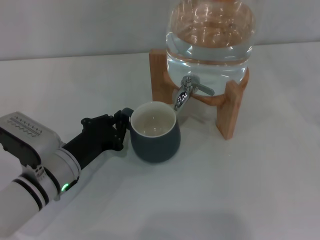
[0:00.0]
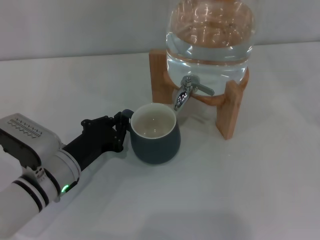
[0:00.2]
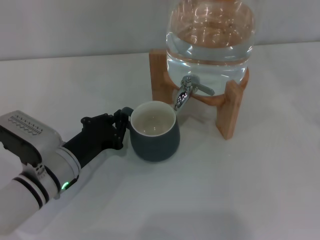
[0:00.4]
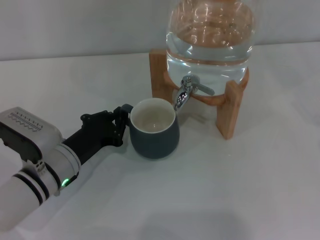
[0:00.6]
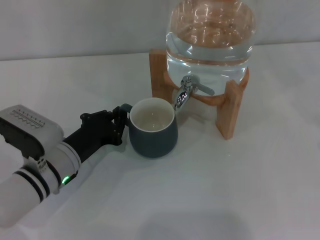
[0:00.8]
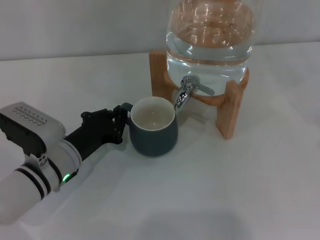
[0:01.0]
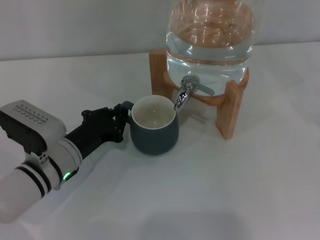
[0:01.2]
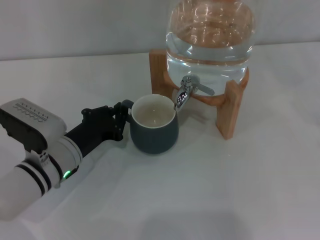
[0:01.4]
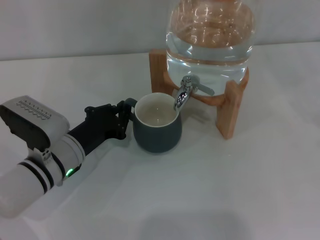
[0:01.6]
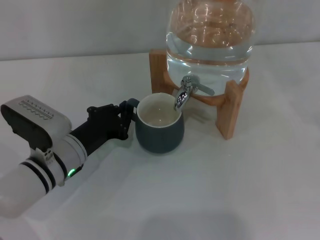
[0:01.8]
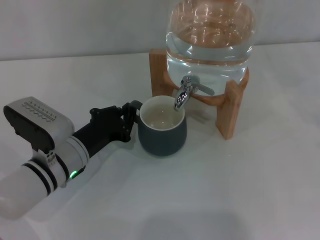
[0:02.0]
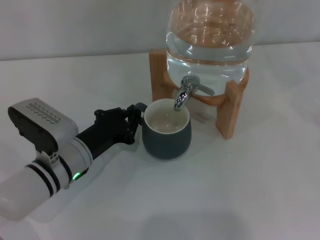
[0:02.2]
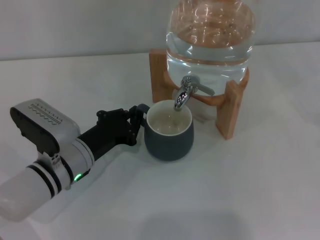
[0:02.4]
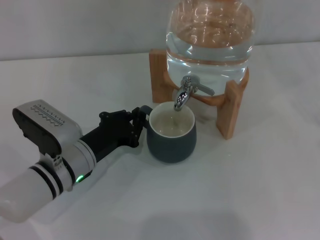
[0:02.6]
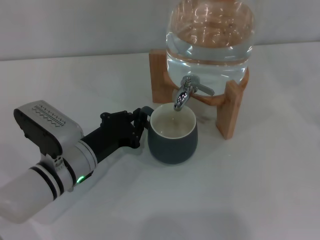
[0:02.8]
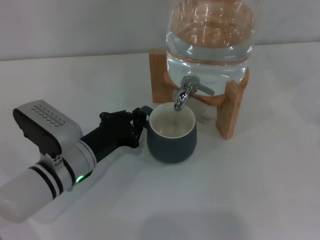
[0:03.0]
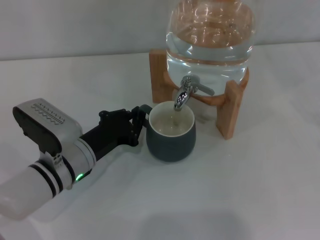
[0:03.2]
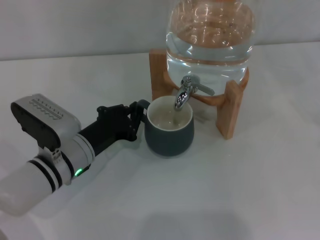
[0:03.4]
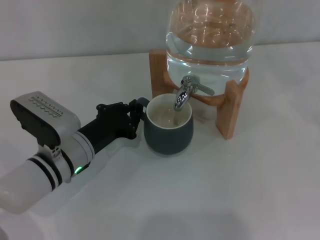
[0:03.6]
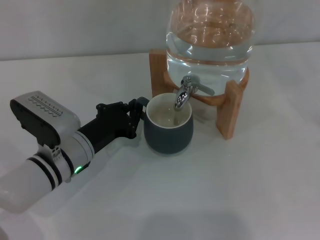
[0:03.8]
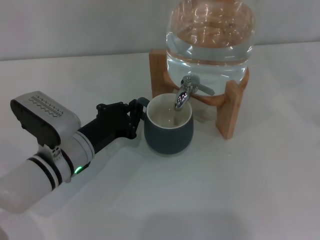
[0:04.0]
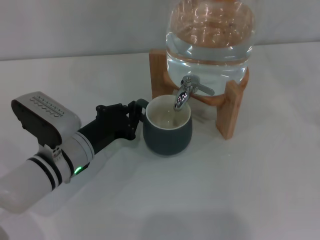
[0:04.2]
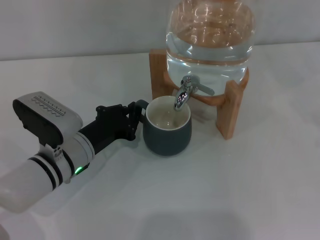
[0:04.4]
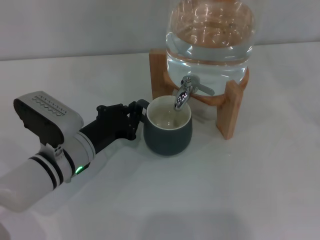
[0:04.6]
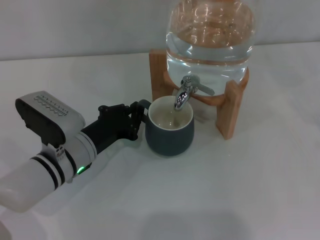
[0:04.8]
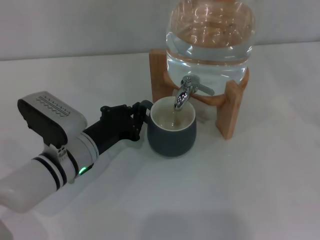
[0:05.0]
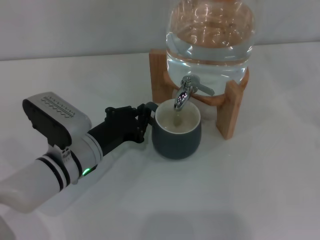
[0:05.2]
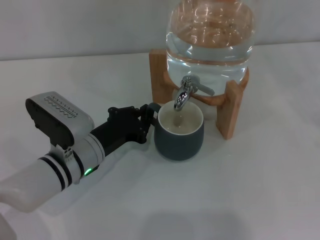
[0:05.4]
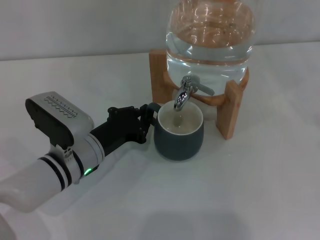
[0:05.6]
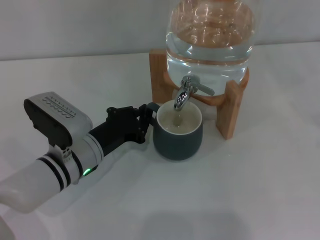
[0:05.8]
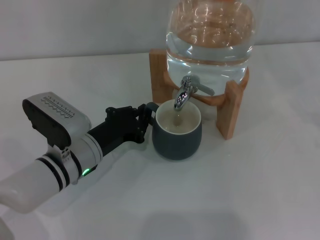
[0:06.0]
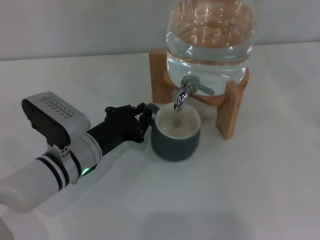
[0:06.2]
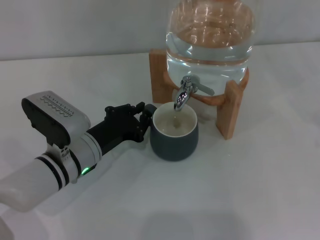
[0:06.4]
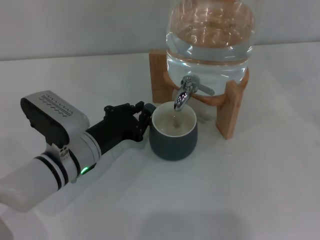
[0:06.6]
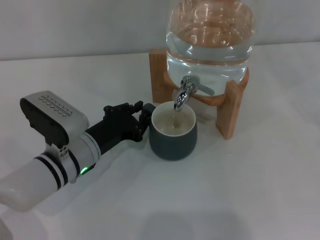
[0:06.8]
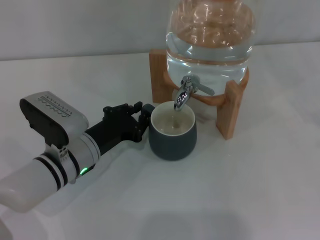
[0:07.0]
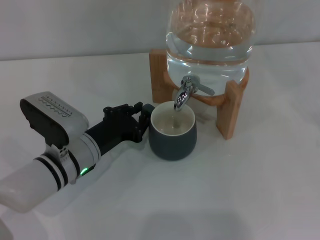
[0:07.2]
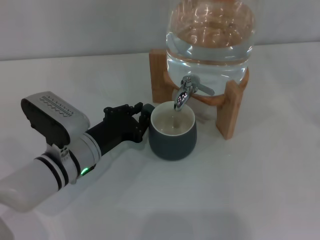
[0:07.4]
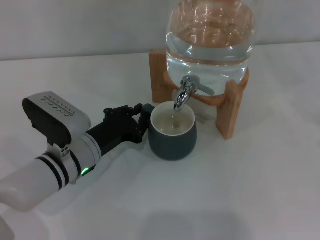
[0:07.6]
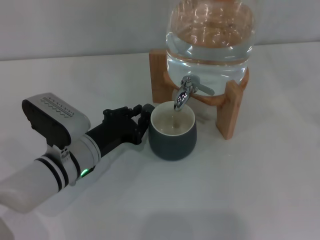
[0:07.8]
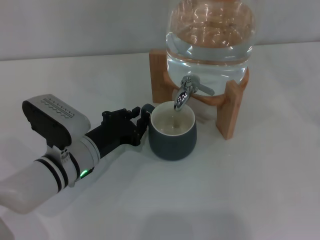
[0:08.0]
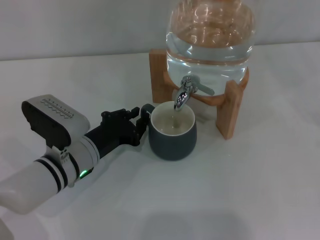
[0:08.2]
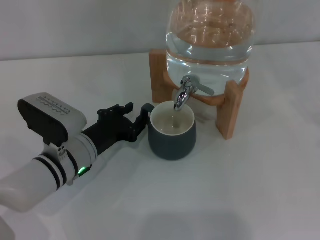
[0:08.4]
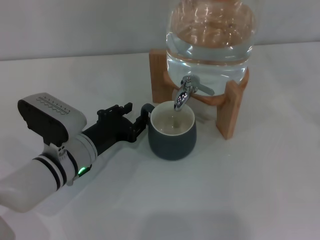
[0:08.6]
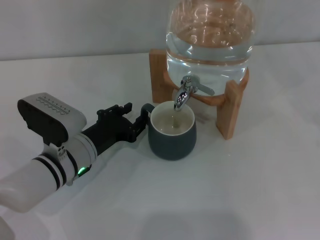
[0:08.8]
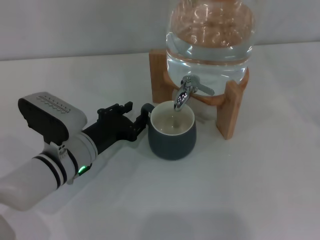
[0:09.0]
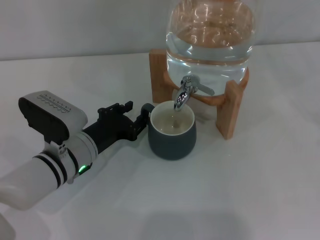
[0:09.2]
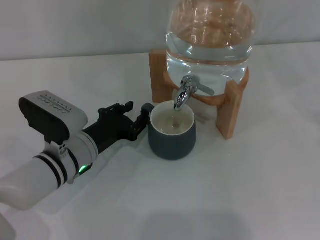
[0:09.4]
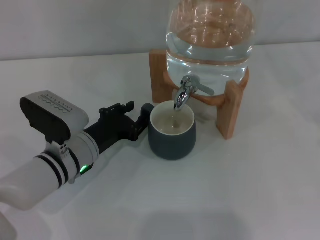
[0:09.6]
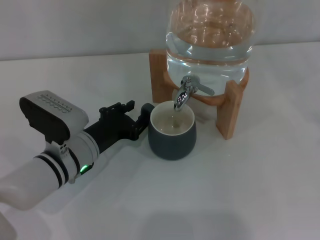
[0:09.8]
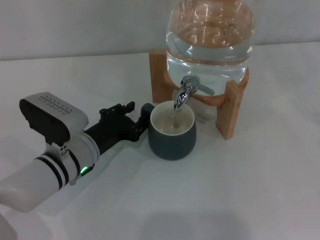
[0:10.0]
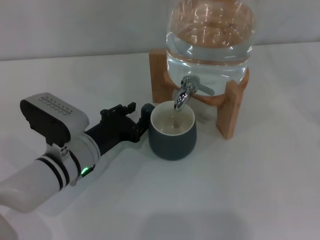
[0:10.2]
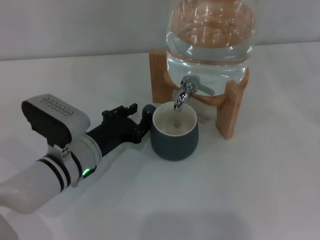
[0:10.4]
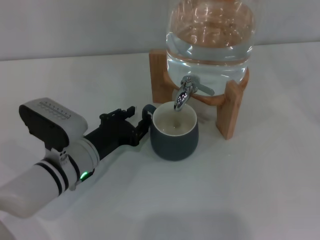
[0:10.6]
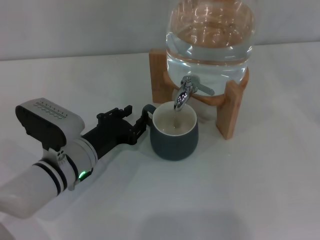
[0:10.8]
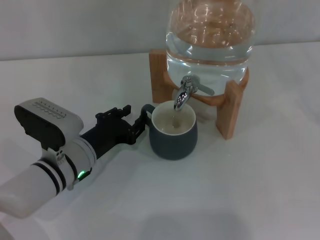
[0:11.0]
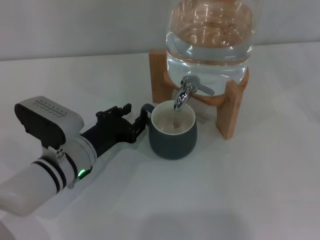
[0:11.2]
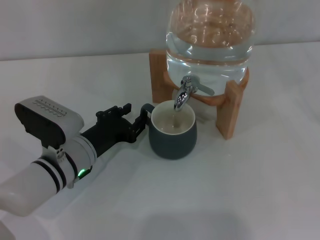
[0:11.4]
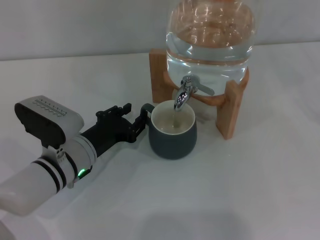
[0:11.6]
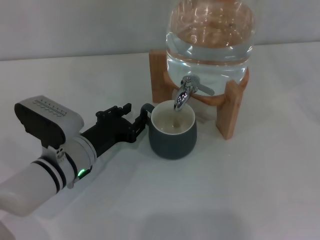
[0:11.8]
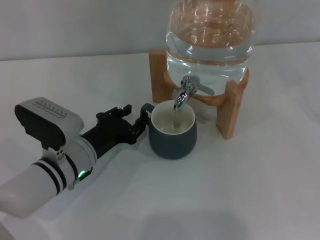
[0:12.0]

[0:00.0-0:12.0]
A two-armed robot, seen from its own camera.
Task of the whole recording: the left gripper pick up the black cup and place it horizontally under the faucet, the right gripper turn on the faucet to fill the cup, and then turn off the faucet.
0:00.0 to 0:03.0: The grippers make only small movements.
0:03.0 to 0:04.4: The two grippers keep their place.
0:04.4 to 0:10.4: Both grippers stay about where they are.
0:10.4 to 0:12.0: The two grippers keep their place.

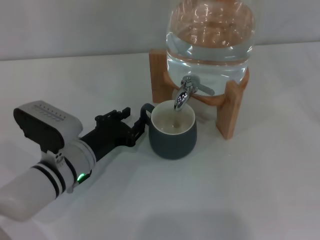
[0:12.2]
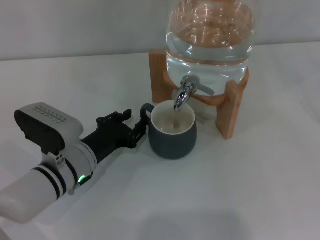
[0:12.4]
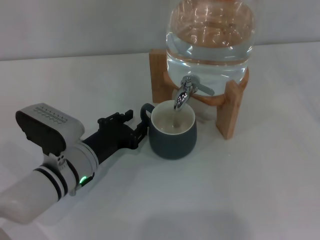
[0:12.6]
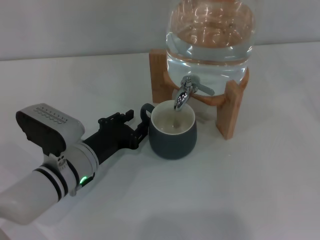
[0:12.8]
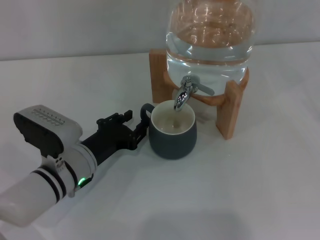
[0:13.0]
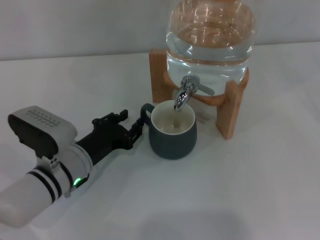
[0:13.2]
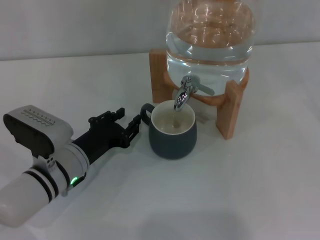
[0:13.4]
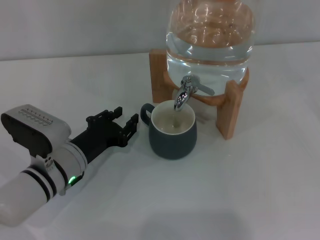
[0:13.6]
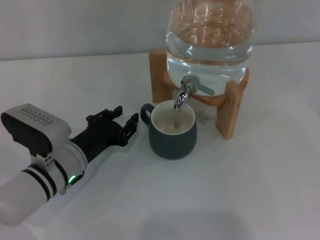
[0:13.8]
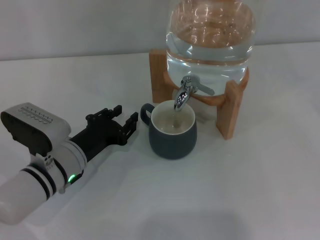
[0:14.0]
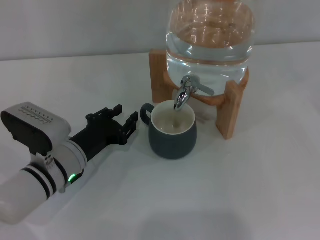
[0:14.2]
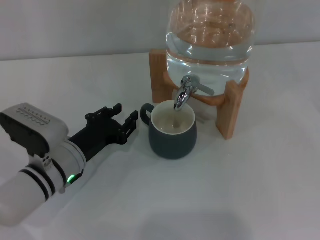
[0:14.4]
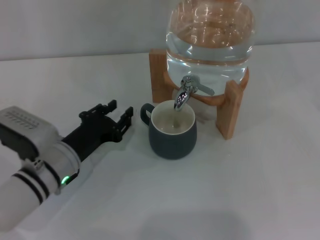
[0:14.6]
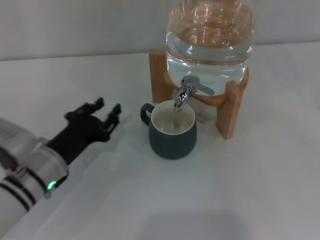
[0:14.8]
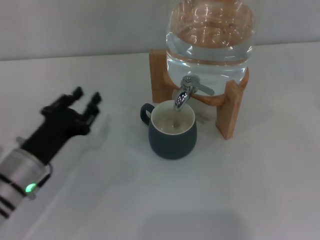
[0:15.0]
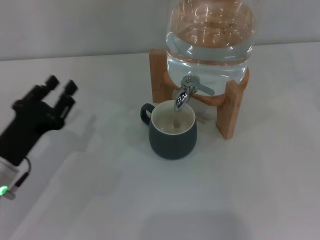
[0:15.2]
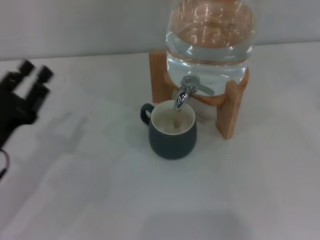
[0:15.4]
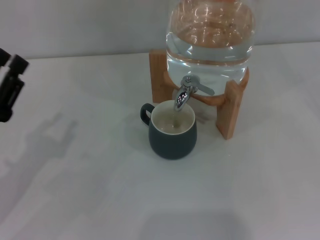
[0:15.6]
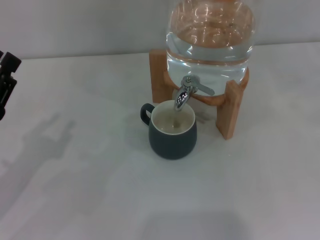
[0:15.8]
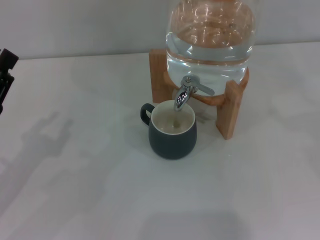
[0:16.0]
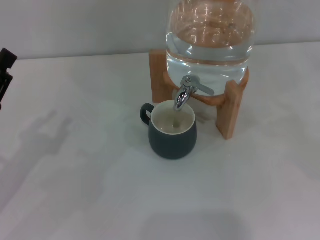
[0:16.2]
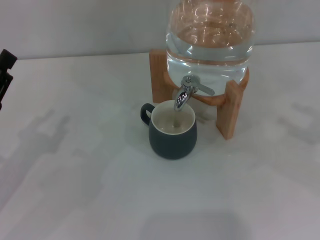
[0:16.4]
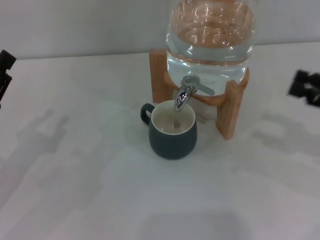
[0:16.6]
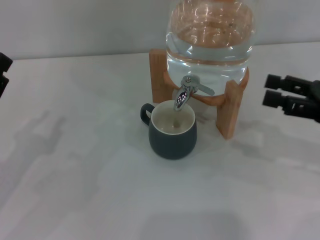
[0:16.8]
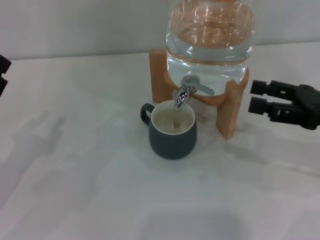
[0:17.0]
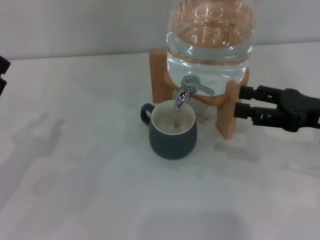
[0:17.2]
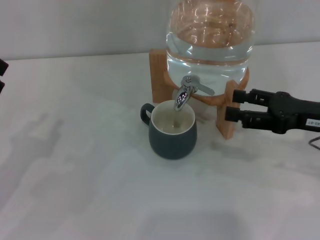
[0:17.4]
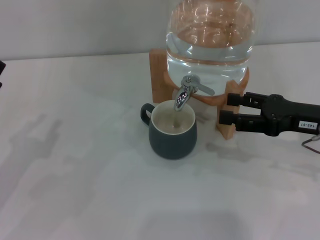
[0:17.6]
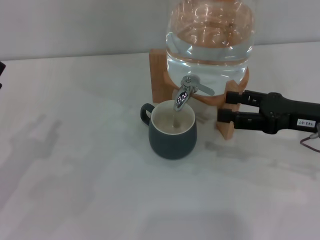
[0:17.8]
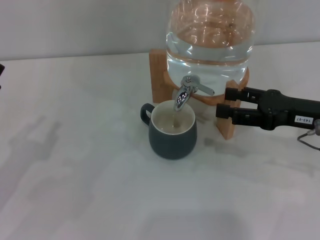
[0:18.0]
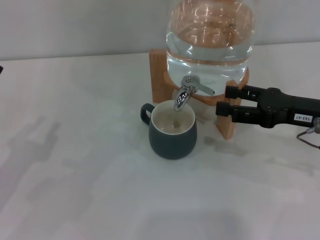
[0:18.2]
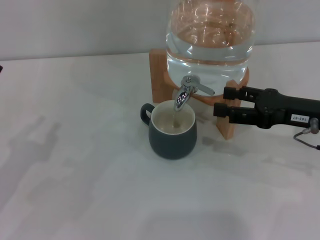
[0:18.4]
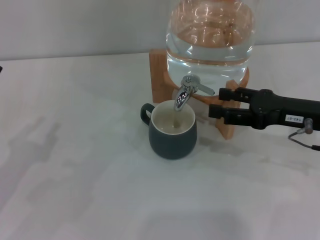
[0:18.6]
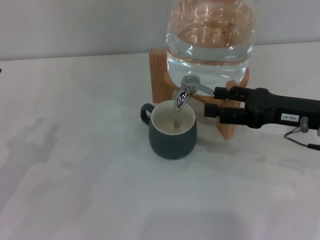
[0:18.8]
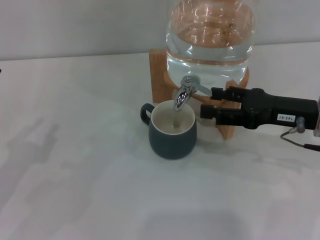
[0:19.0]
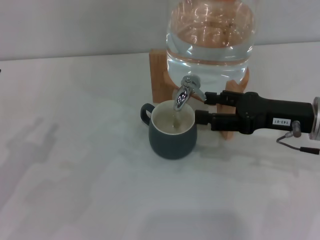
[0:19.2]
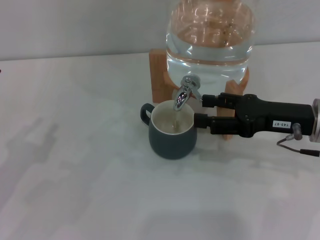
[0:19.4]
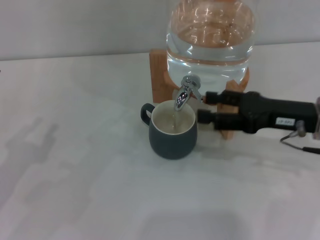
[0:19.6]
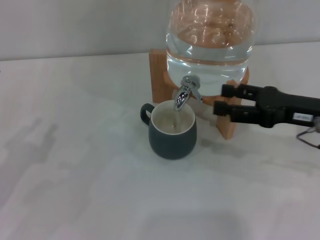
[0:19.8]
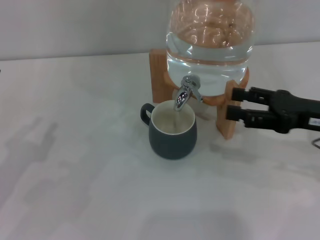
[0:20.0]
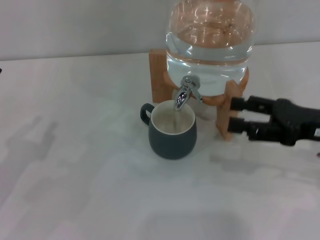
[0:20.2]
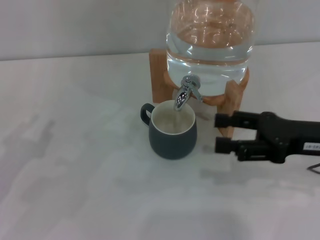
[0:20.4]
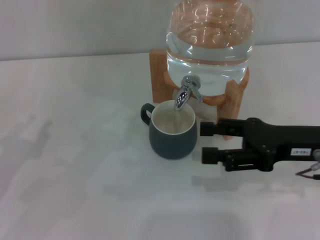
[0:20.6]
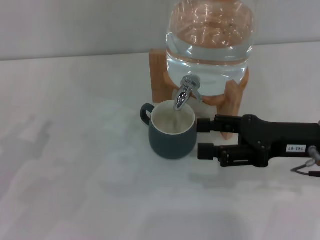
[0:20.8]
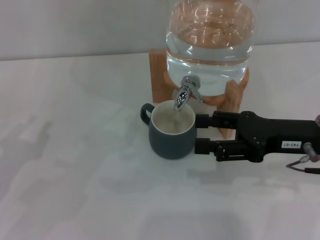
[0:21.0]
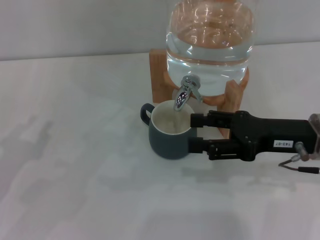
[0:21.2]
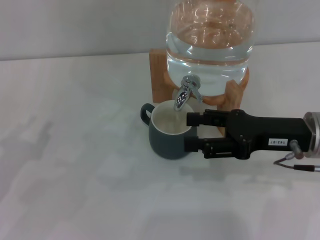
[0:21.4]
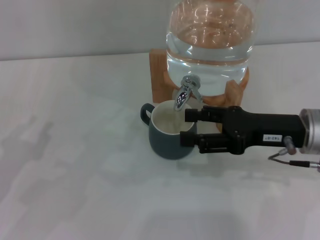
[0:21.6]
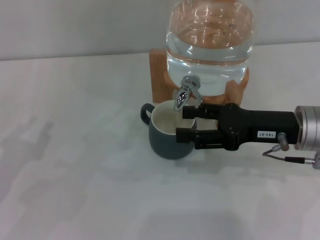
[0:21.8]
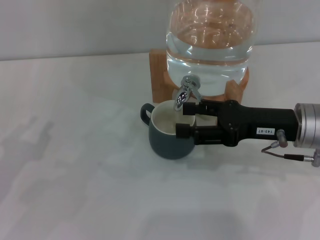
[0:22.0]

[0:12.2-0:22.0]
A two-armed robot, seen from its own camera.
Task of the whole recording: the left gripper pick up the black cup and place it horizontally under the faucet, the right gripper turn on the faucet to fill the cup, and then turn off the faucet.
Step, 0:14.2 to 0:19.8: Open the dispenser valve and fill the cup with water with the right gripper.
0:12.2 to 0:13.6: The two grippers keep their place.
0:13.6 to 0:15.0: The left gripper ends up about 5 cm from where it was.
0:15.0 to 0:16.4: The left gripper shifts some 10 cm to the left and upward.
0:16.4 to 0:17.8: The right gripper moves to the left, some 10 cm.
0:17.8 to 0:22.0: The grippers stay close to where they were, moving slightly.
